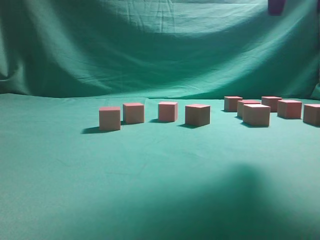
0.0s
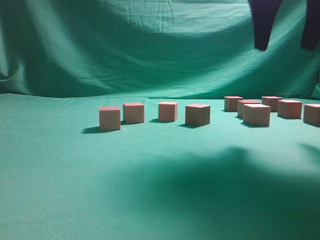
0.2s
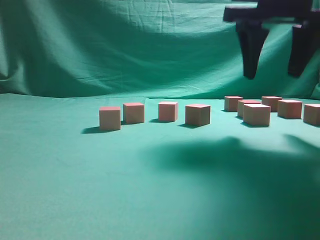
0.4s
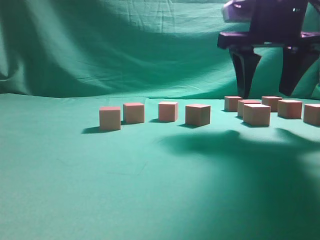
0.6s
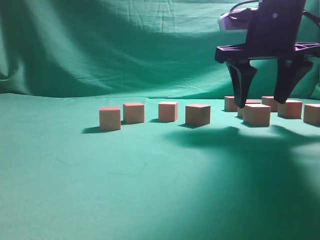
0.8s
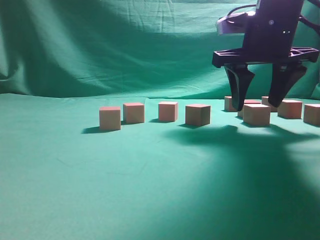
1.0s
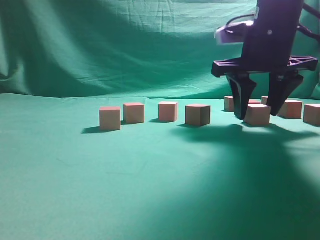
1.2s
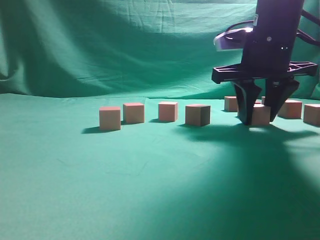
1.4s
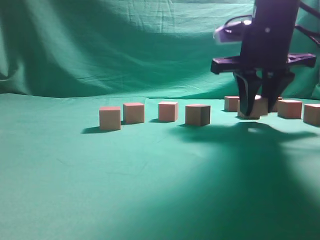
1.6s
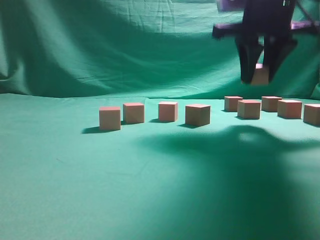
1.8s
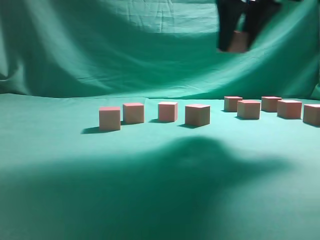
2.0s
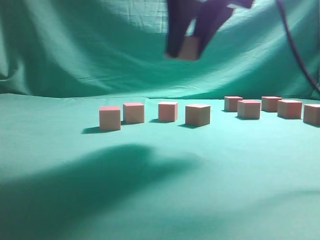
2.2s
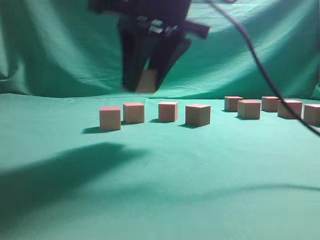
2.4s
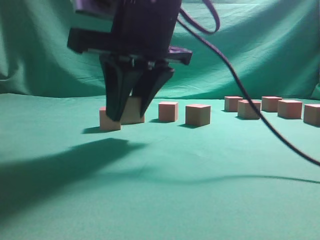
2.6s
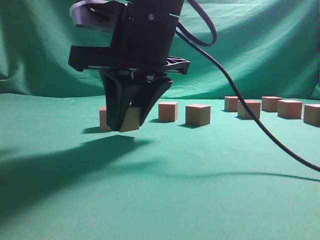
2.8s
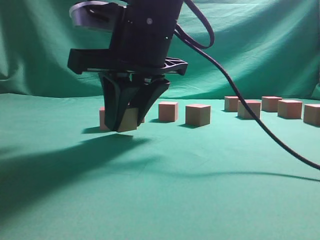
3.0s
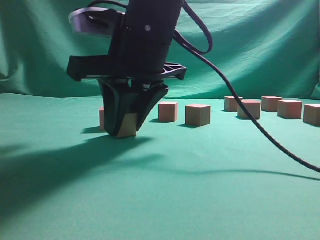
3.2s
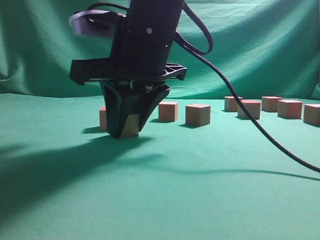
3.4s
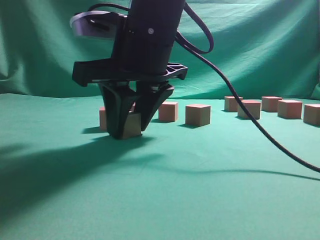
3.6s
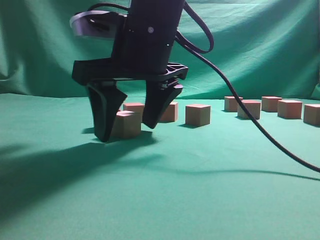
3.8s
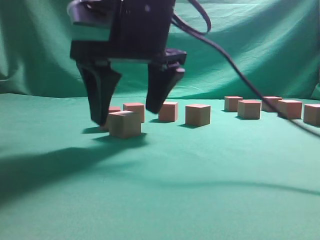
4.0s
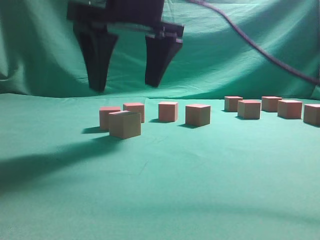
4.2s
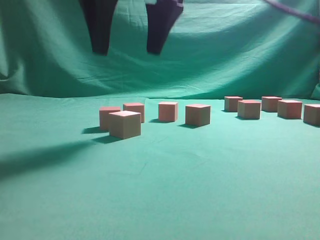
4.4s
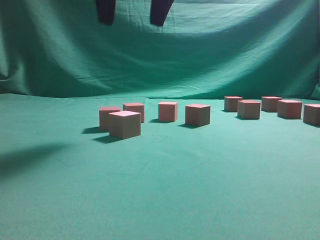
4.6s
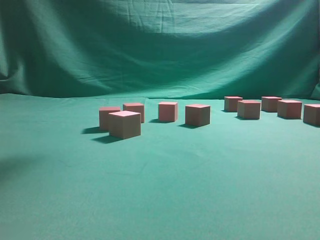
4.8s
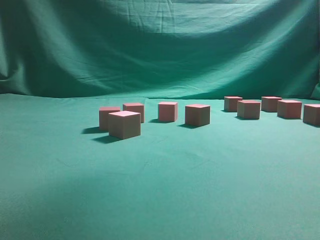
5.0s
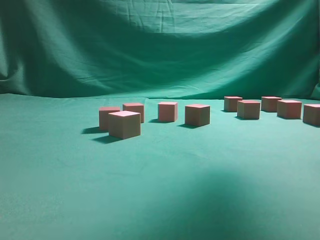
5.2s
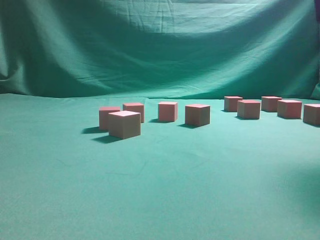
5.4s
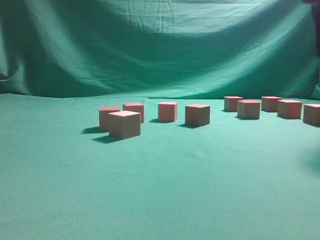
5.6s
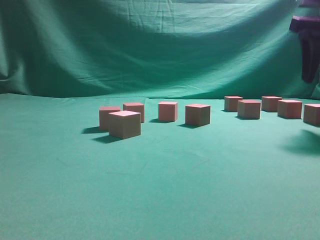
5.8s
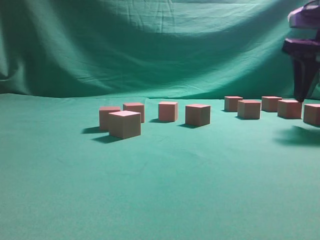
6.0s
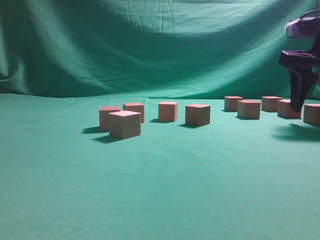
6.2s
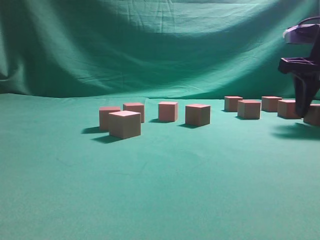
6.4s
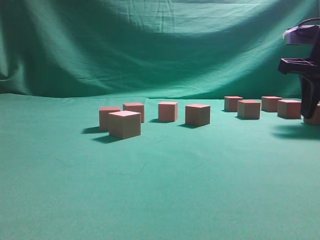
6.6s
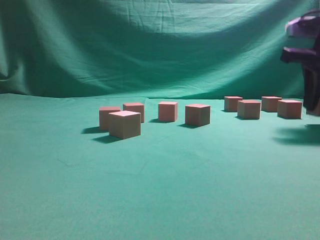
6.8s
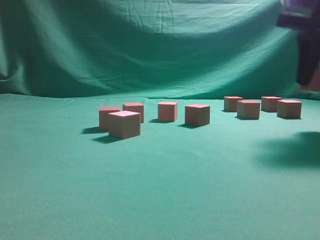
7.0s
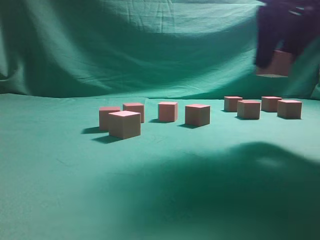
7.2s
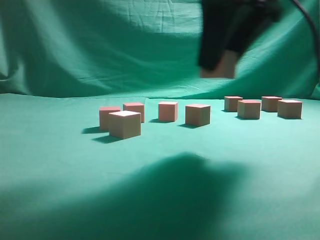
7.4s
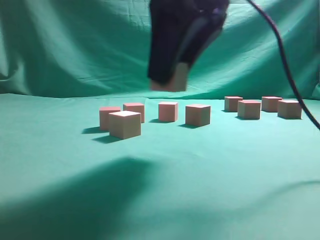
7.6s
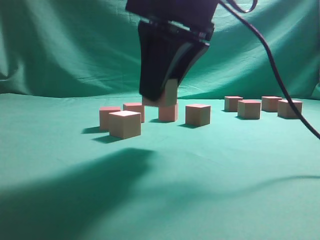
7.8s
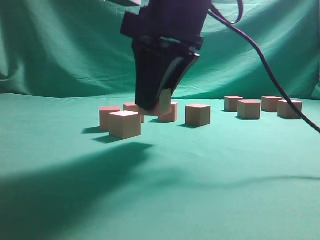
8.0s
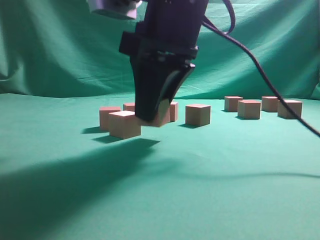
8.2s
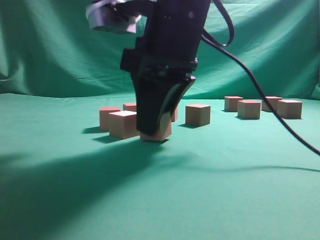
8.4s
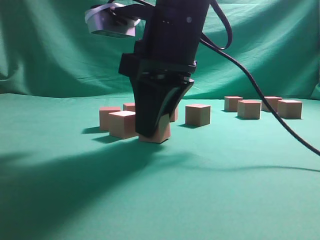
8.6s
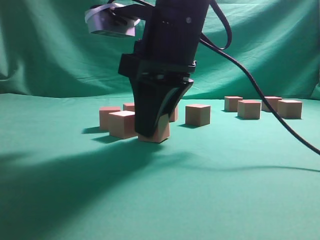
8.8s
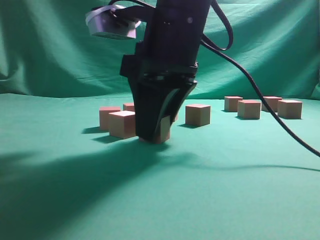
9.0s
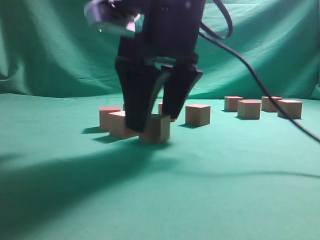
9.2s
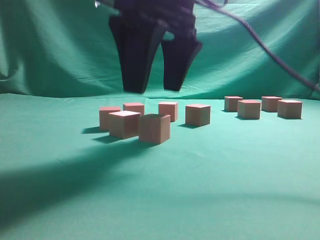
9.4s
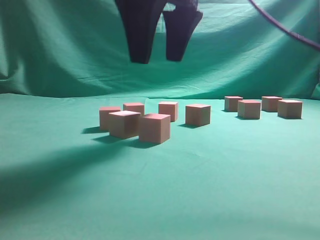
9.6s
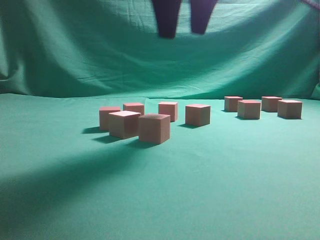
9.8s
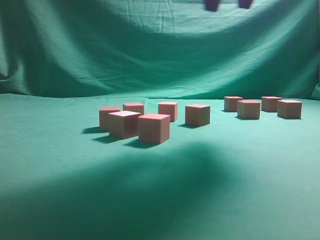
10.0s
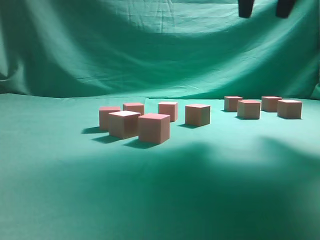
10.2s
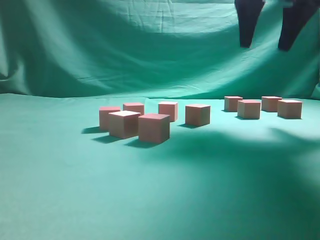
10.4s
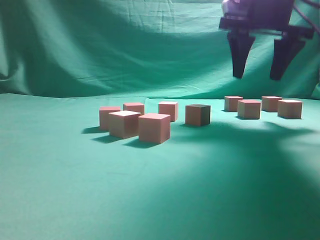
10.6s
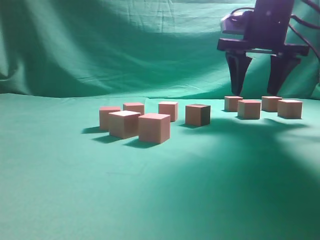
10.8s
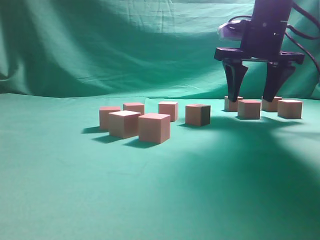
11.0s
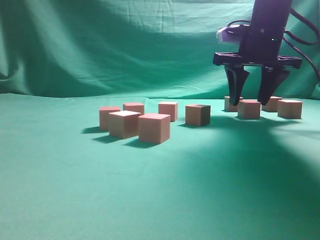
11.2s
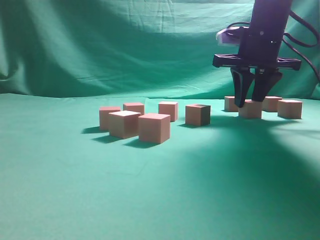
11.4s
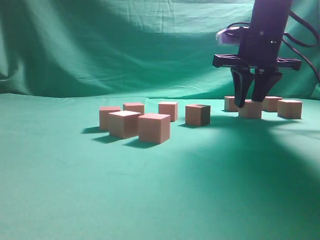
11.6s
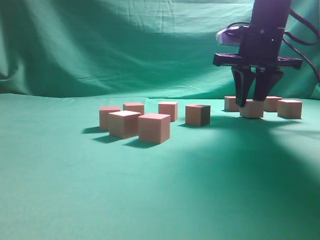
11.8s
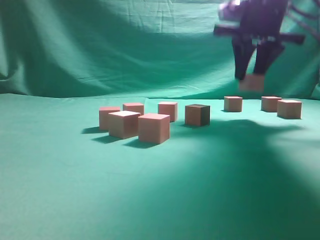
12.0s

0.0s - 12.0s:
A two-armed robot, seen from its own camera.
Task of the whole recording: pick up the multiple cubes in two columns one by one and place them in another position on the table.
Step, 0.0s - 1.6s: Pick up the block on the table.
Step, 1.8s - 4.4s: Place the block at the correct position to assemble the letter S.
Step, 4.6s - 6.8s: Pick up the block on the table.
Step, 7.2s - 9.6s: Place the block at the correct position to assemble the letter S.
Step, 9.8s - 11.8s: Pick up the block on the table.
0.0s - 1.6s: The right gripper heads downward and forward, covering about 15 cm, and closes up.
1.6s - 3.0s: The right gripper goes approximately 20 cm to the left and backward.
3.0s - 4.4s: The right gripper goes about 10 cm upward, and opens.
4.4s - 6.0s: The right gripper travels to the right by roughly 30 cm.
6.0s - 7.6s: The right gripper is displaced to the left and backward by some 25 cm, and closes its fingers.
7.6s - 9.0s: The right gripper travels downward by roughly 5 cm.
9.0s - 10.4s: The right gripper travels to the right, upward and forward by some 20 cm.
10.4s - 12.0s: The right gripper goes some 5 cm downward, and closes up.

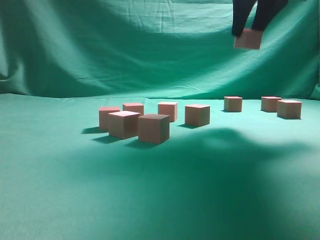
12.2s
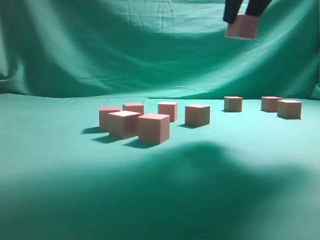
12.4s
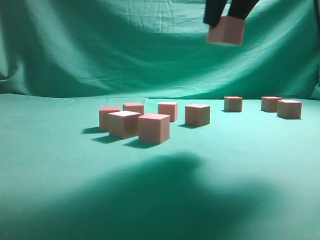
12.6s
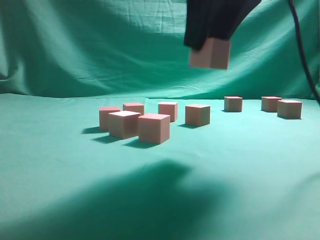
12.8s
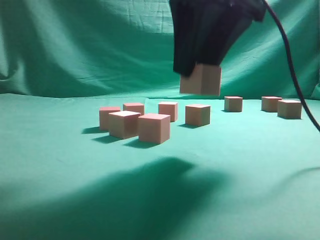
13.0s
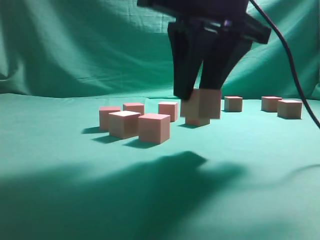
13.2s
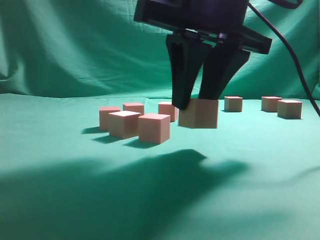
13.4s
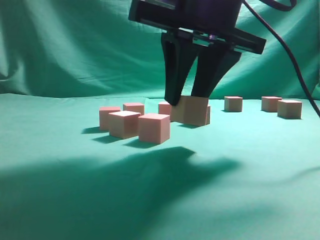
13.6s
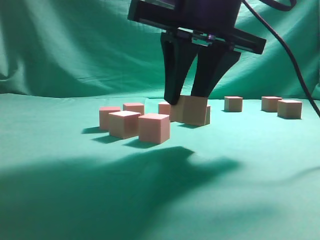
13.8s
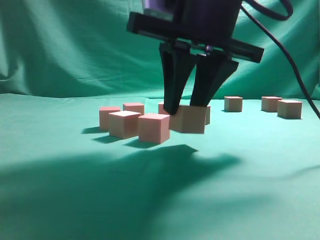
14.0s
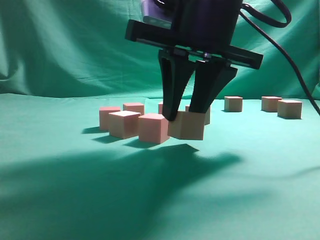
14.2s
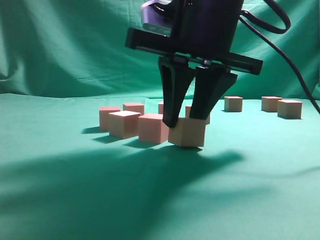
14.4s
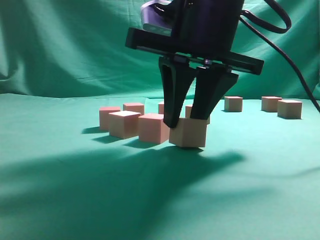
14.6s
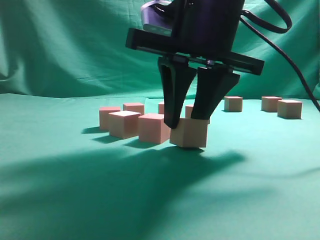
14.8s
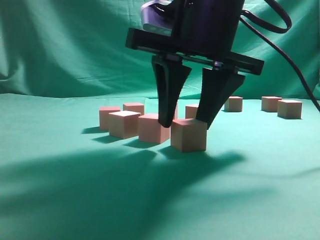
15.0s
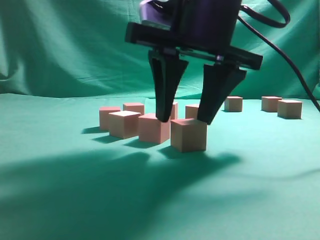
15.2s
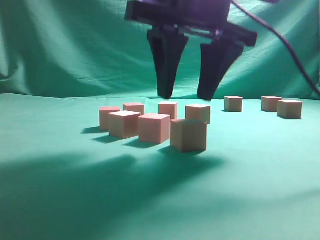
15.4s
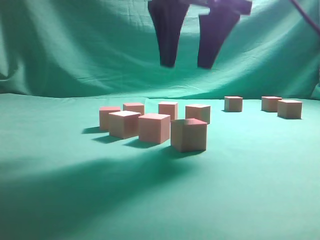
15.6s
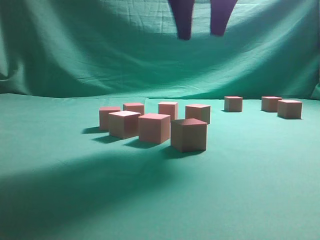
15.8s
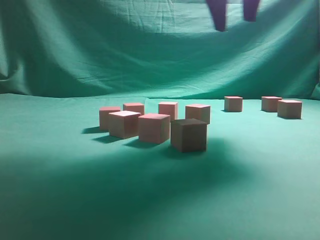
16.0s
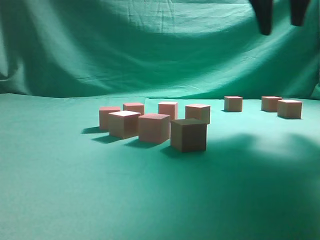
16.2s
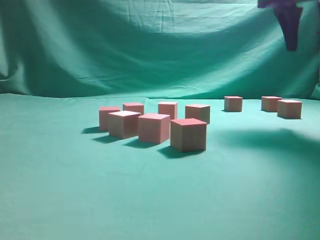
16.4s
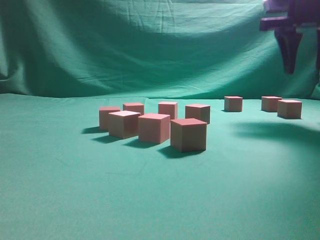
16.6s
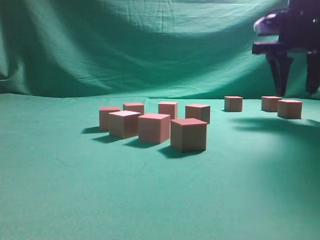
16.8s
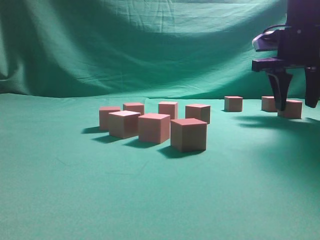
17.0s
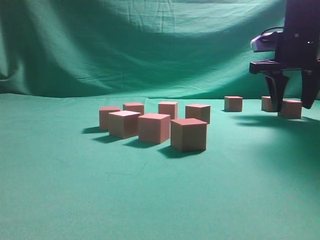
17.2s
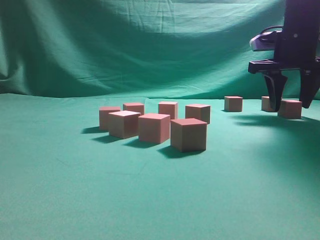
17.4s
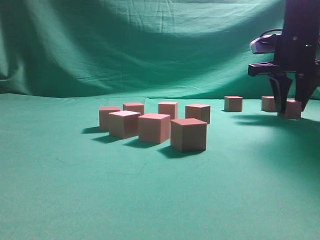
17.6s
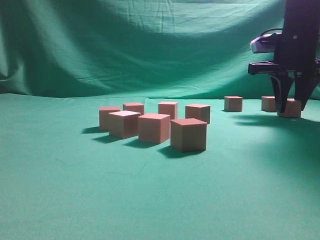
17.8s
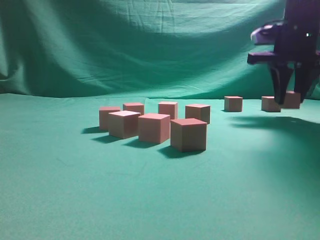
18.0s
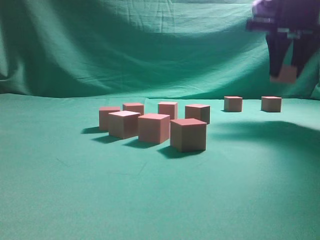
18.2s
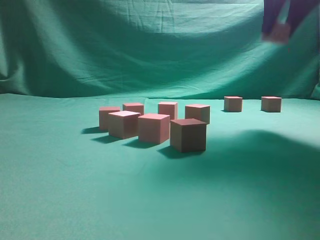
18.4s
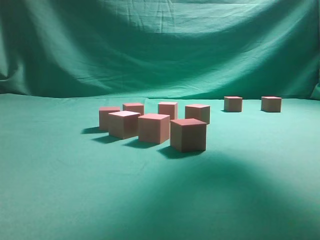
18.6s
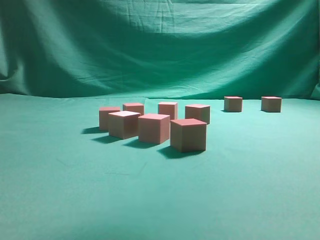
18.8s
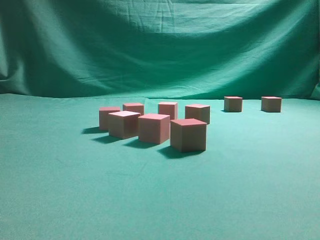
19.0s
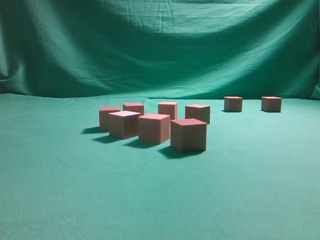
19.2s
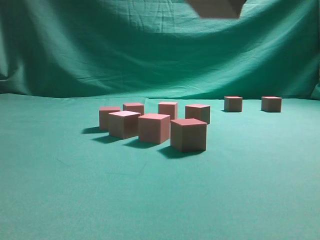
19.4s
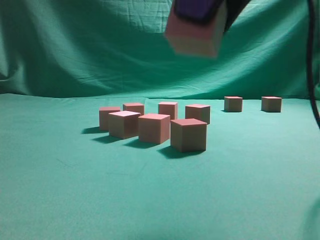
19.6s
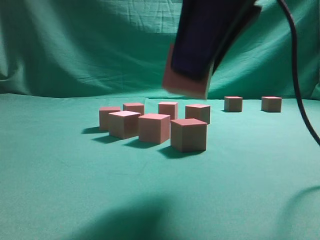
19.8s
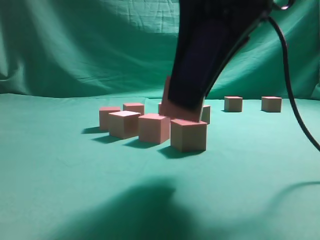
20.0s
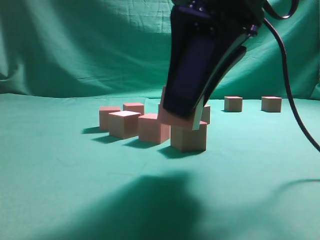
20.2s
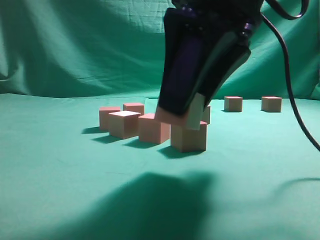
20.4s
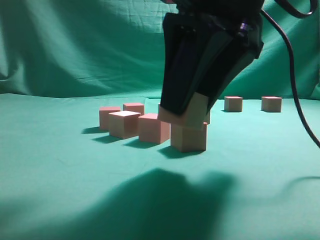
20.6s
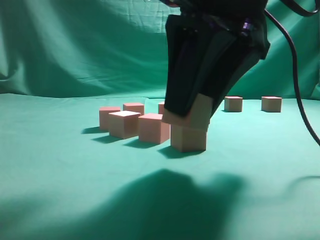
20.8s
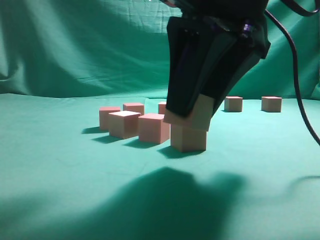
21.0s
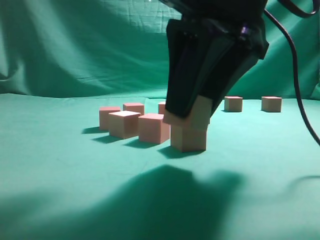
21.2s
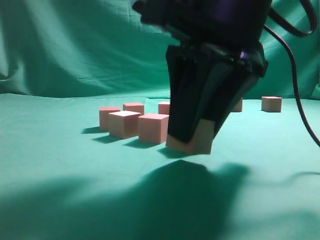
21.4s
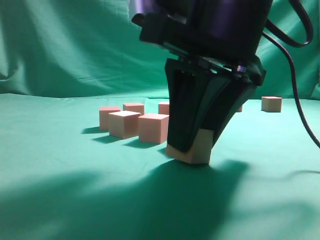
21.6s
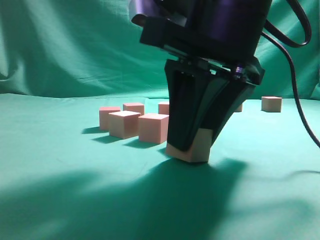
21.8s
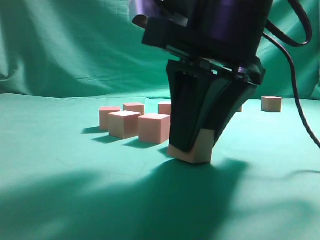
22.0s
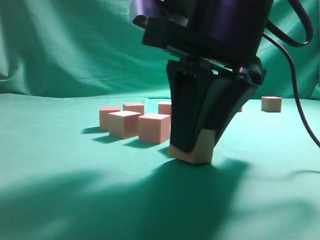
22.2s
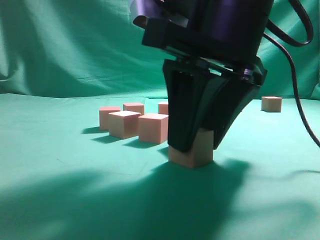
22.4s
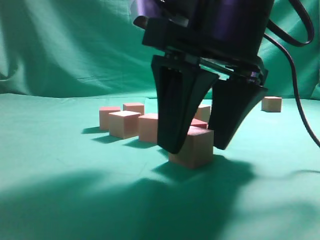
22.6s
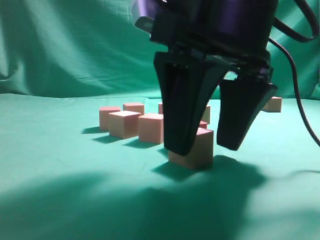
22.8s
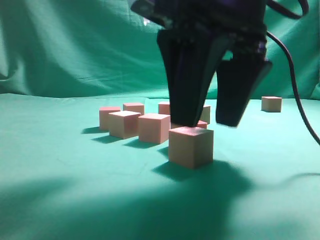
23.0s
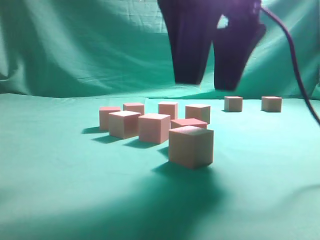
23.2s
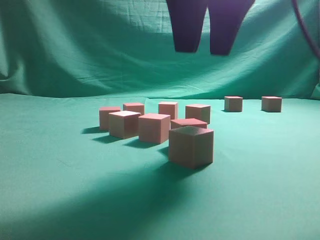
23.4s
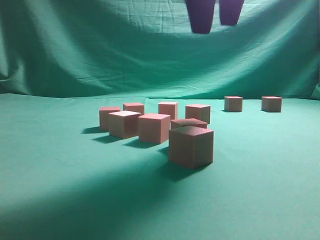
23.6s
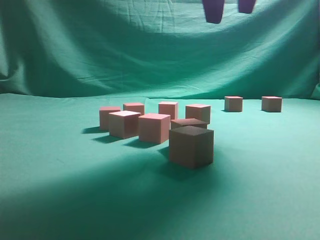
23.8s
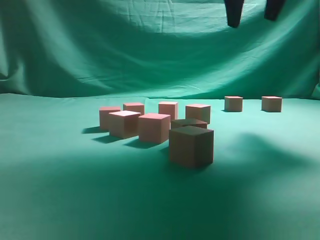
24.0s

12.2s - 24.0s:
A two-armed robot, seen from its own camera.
Task of the whole recording: pick up the multiple cubes in two columns one by one and place them in another position on the table.
Step, 12.2s - 15.6s: Place the block at the correct position to assemble the letter S.
Step, 15.8s - 18.0s: Pick up the block on the table.
Step, 18.2s - 23.2s: Place the block at the correct position to assemble the letter S.
12.2s - 13.6s: The right gripper moves backward, to the left and downward, approximately 20 cm.
15.2s - 16.6s: The right gripper travels to the right and forward by some 25 cm.
16.6s - 18.2s: The right gripper moves about 10 cm downward and comes back.
18.2s - 19.6s: The right gripper heads backward and to the left, covering about 25 cm.
19.6s - 21.0s: The right gripper shifts approximately 5 cm downward.
21.0s - 22.6s: The right gripper opens its fingers.
22.6s - 24.0s: The right gripper shifts approximately 20 cm upward, forward and to the right.
